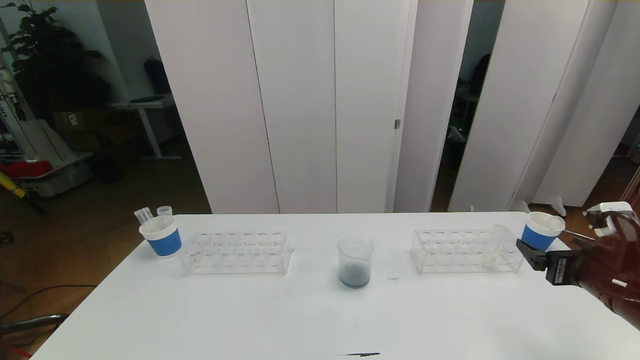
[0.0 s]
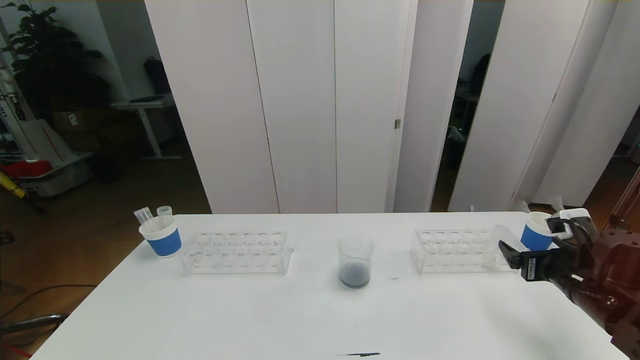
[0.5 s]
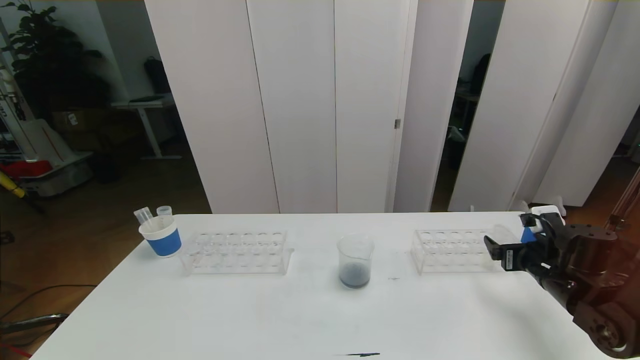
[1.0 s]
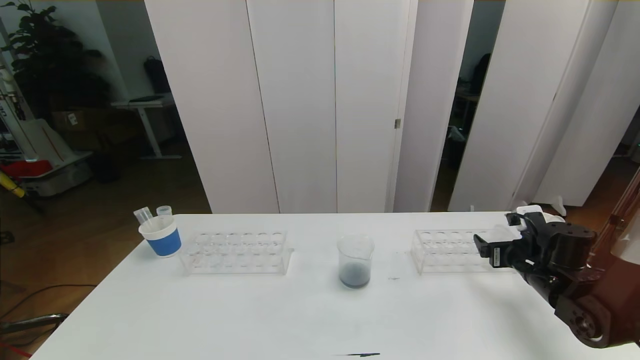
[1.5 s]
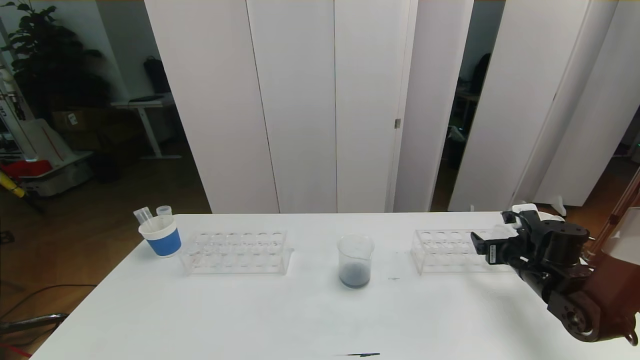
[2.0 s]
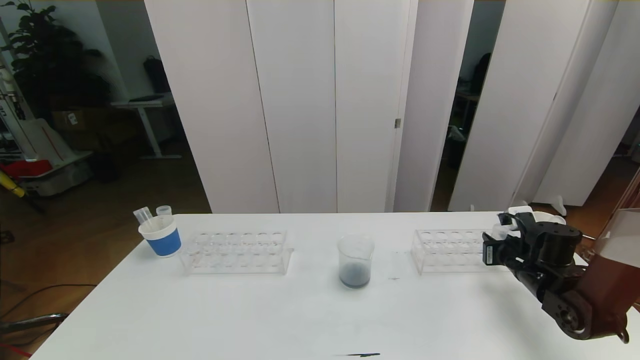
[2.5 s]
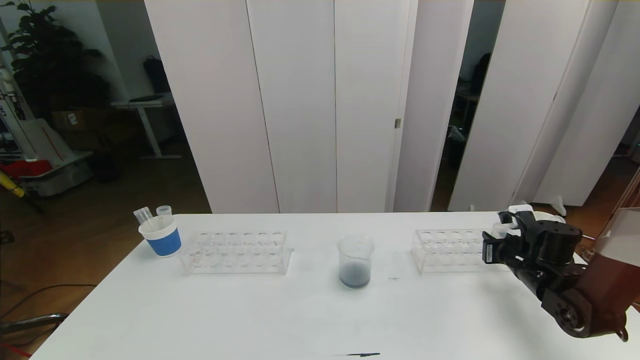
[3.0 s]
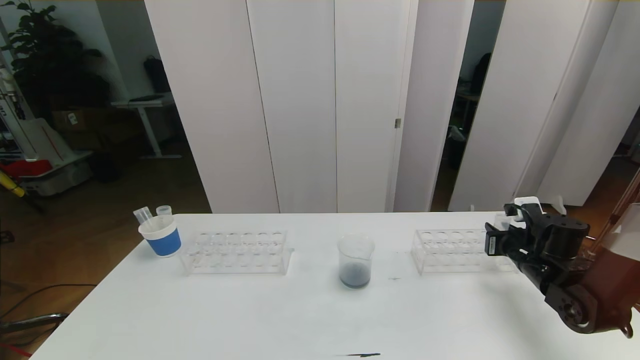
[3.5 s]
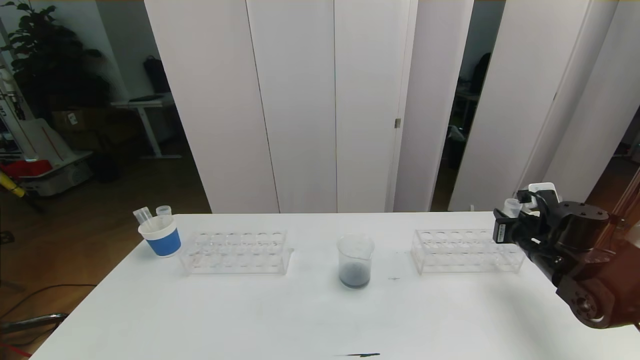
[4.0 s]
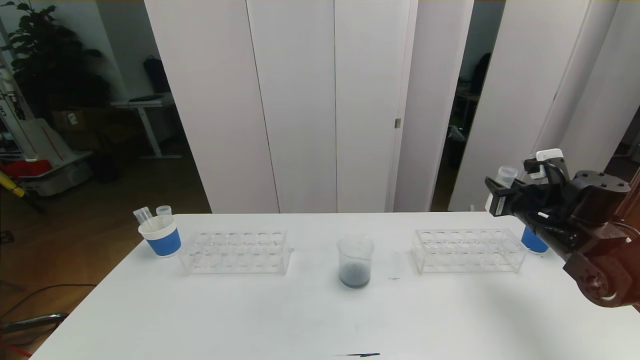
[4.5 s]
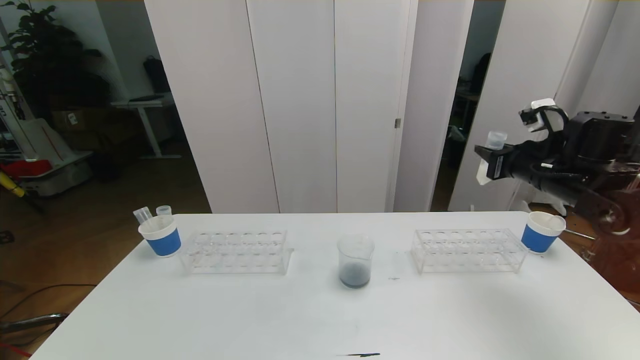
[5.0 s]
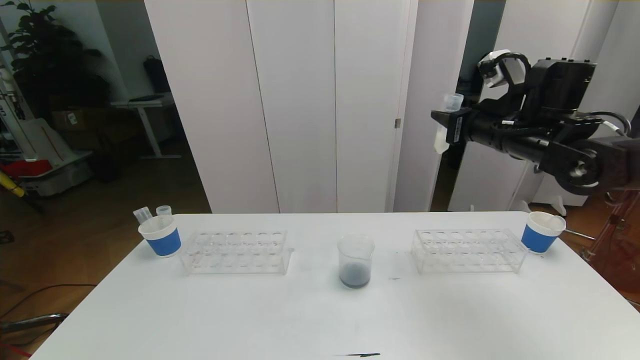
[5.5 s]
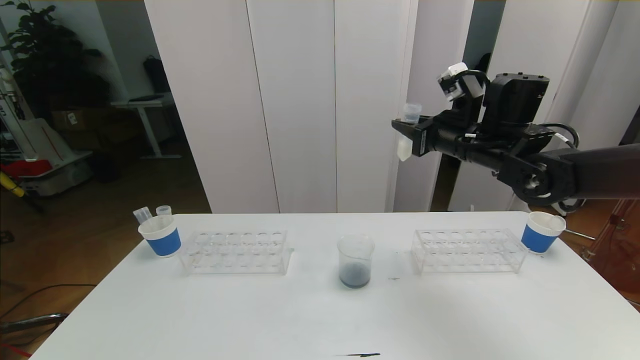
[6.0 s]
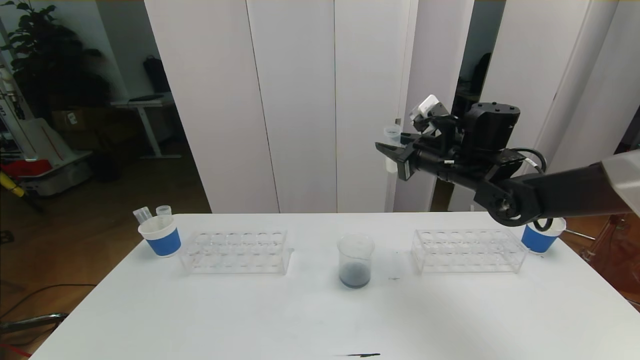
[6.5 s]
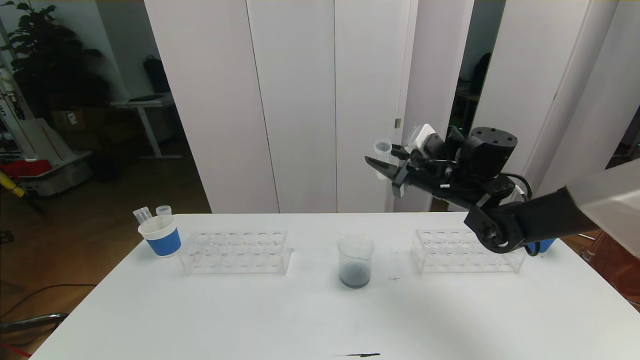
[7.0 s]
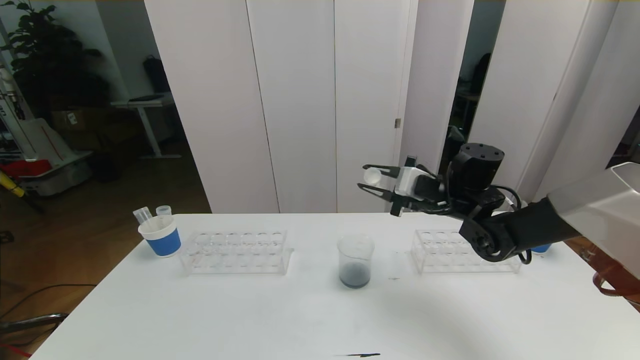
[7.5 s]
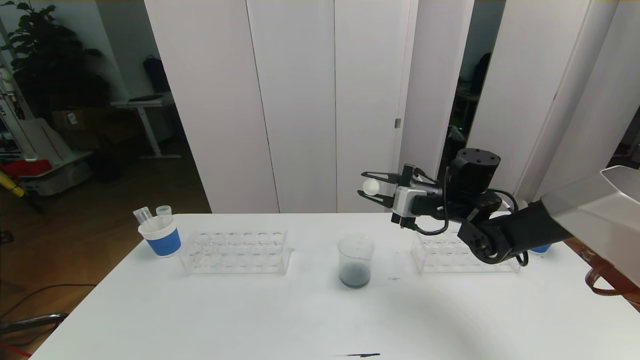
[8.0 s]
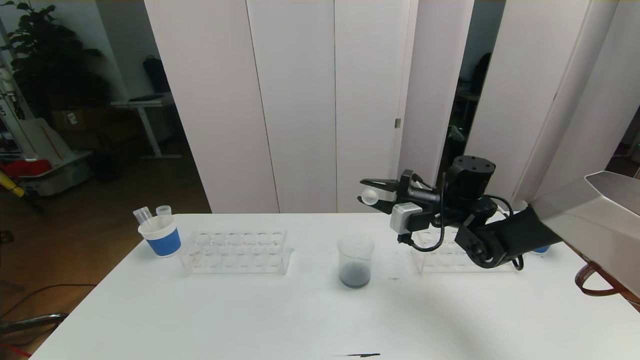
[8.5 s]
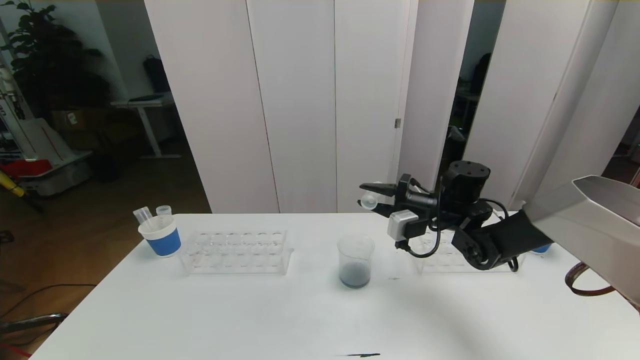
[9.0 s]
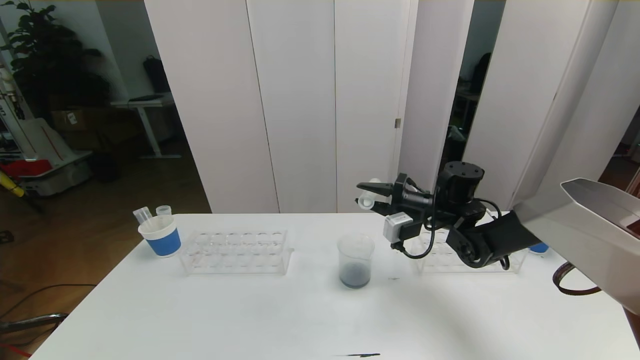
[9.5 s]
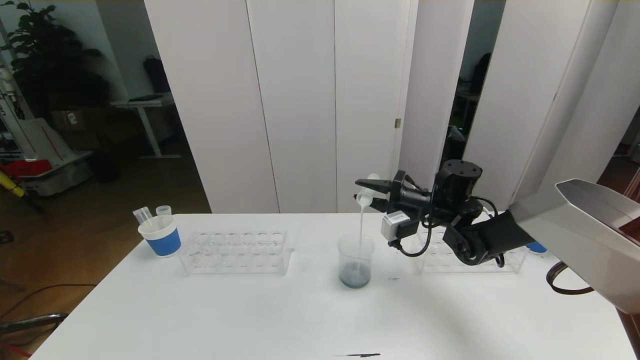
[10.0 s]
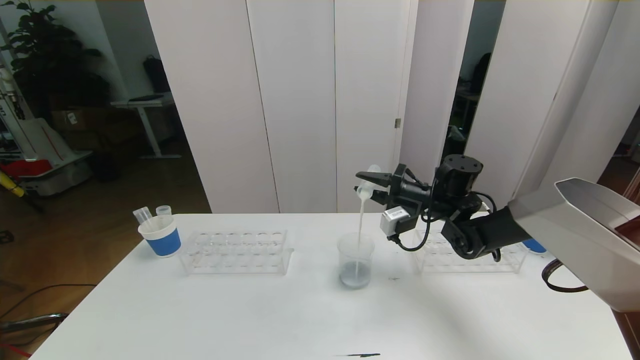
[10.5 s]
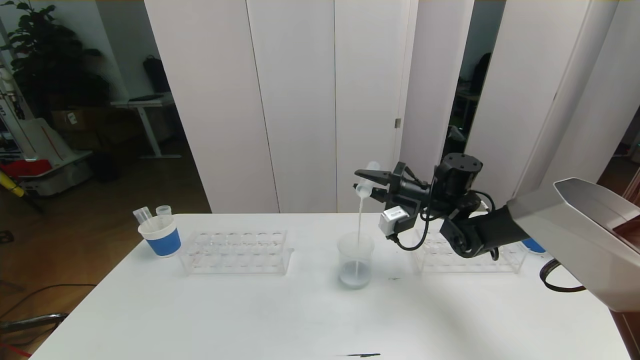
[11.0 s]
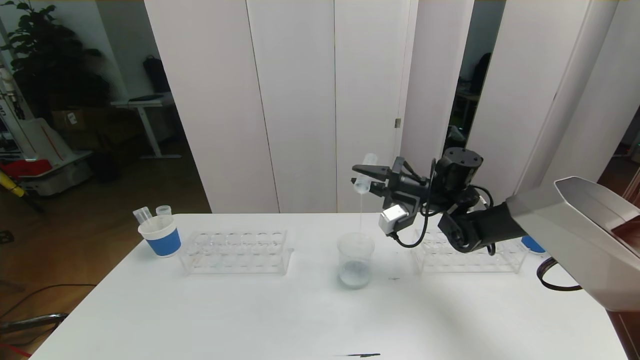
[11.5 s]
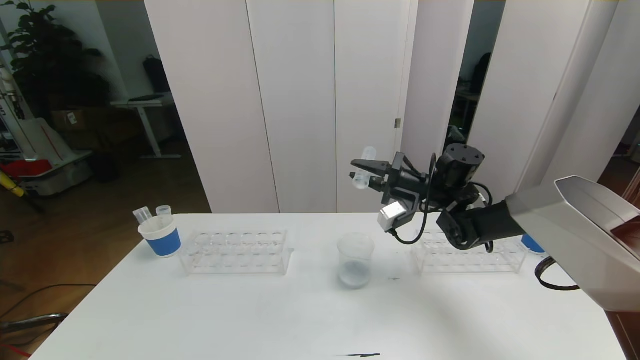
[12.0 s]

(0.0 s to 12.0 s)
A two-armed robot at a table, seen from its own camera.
Task of the whole recording: pick up the test tube with red pigment the test tube with blue pigment and the test tube with white pigment by grippers and pour them into the beaker.
0.0 s - 2.0 s: The right gripper heads forward and downward, covering some 15 cm.
2.0 s - 4.0 s: The right gripper closes up.
4.0 s - 6.0 s: The right gripper travels upward and to the left by about 20 cm.
6.0 s - 8.0 s: The right gripper goes about 10 cm downward.
10.0 s - 12.0 s: The grippers make only small movements.

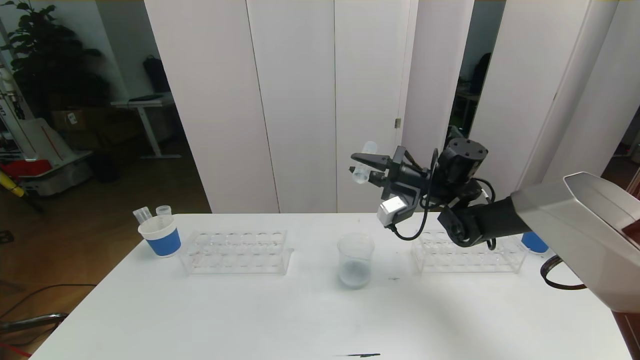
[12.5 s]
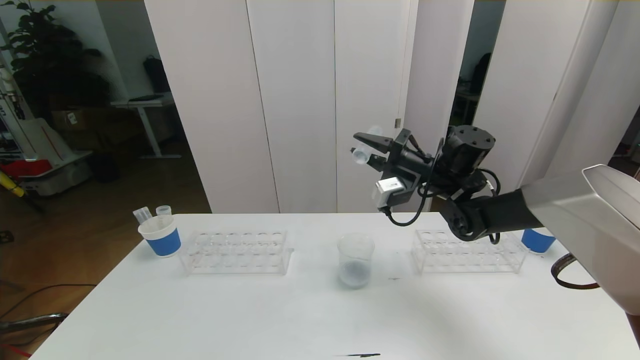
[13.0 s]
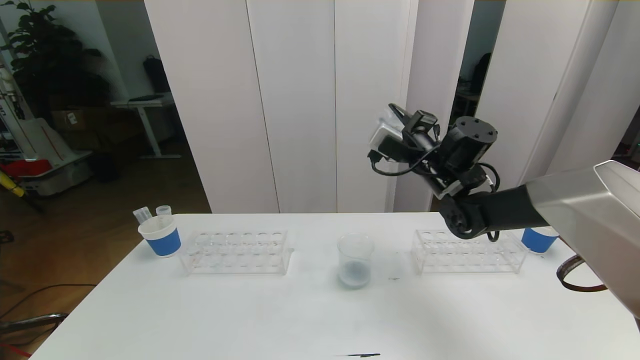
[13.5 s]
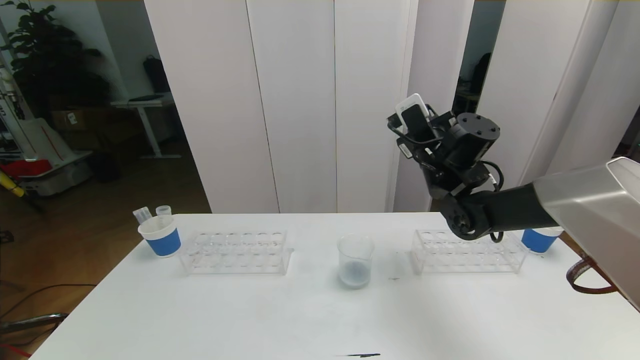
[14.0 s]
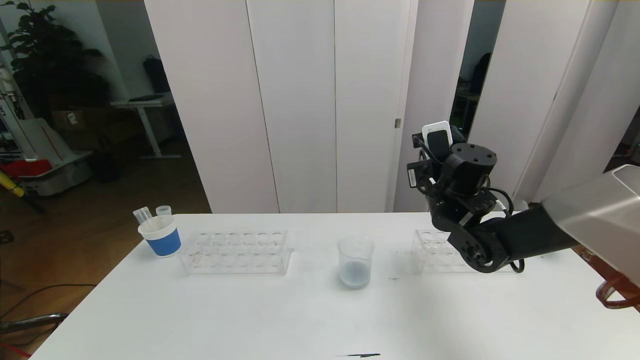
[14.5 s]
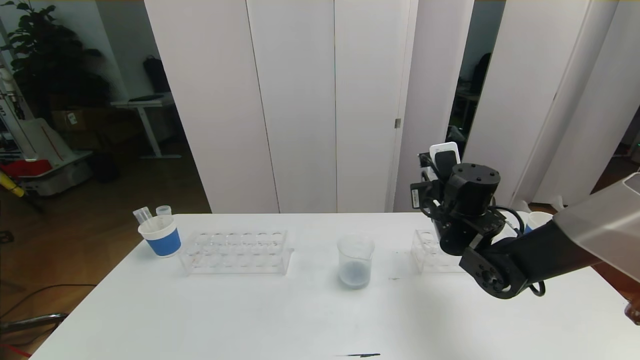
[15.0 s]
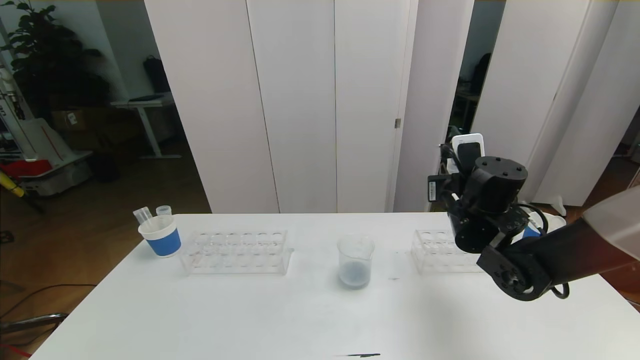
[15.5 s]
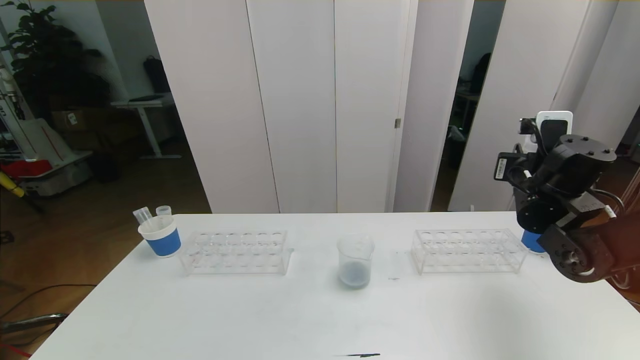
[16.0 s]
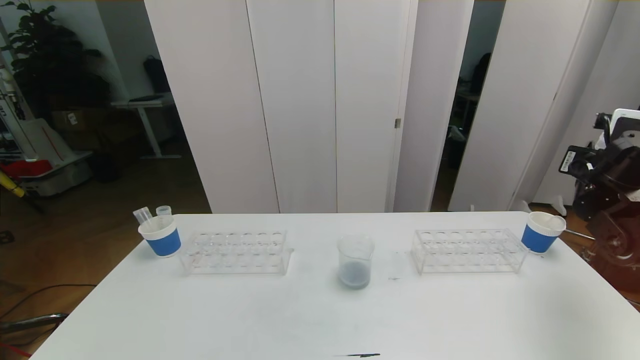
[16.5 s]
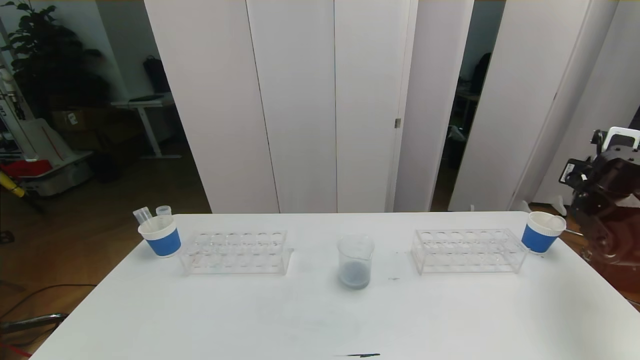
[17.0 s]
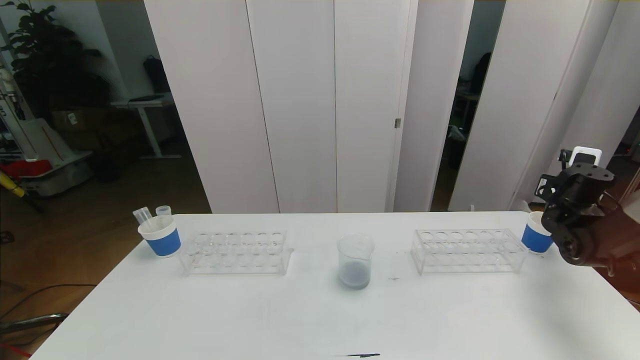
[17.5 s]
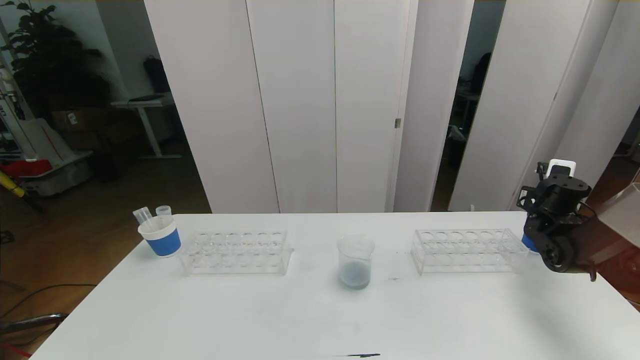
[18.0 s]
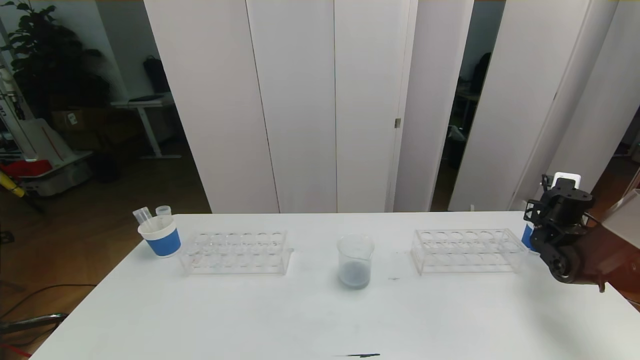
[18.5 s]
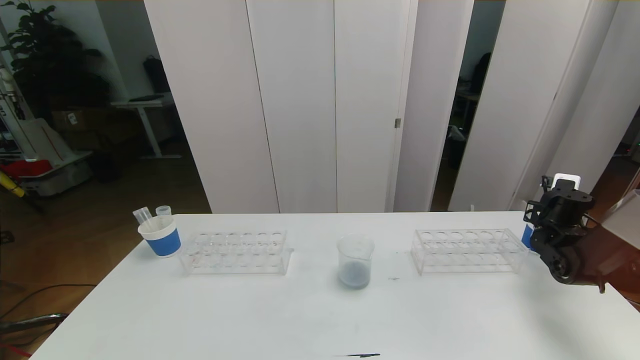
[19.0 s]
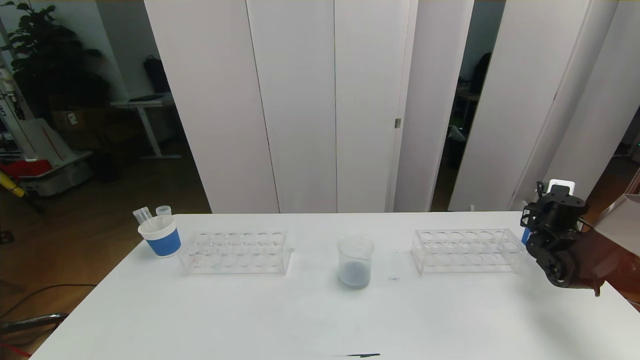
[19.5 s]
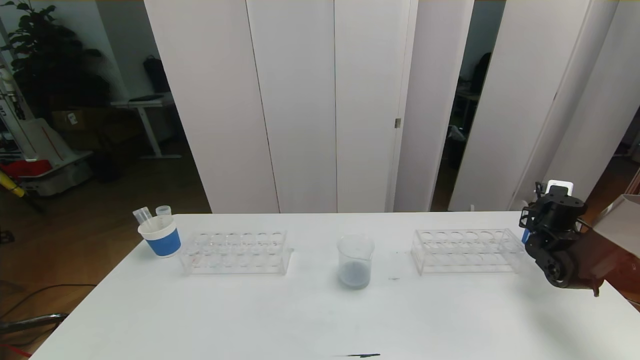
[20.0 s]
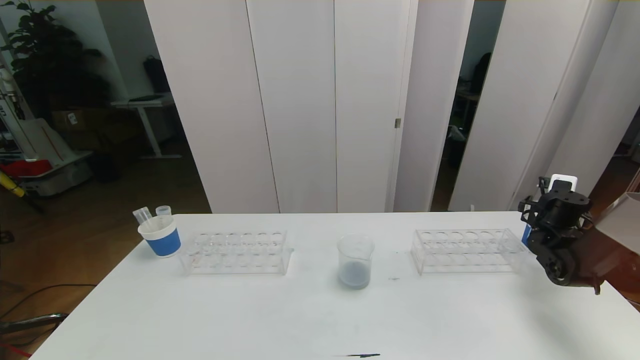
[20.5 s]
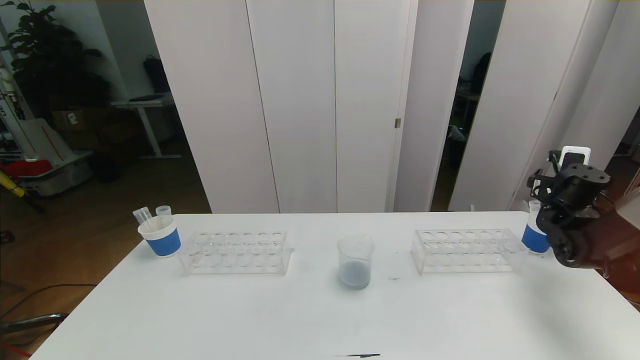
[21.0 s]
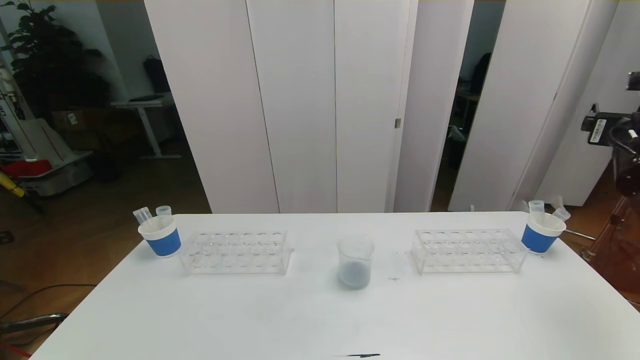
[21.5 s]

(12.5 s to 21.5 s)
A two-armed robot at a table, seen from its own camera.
Task of the whole recording: pick up the test tube with red pigment the test tube with blue pigment and the test tube with white pigment by grippers and pour them into the beaker.
12.5 s - 14.5 s: The right gripper heads backward, covering roughly 5 cm.
14.5 s - 17.0 s: The right gripper travels to the right by about 25 cm.
17.0 s - 19.5 s: The right gripper heads downward, covering about 10 cm.
19.5 s - 21.5 s: The right gripper goes approximately 25 cm upward and backward, and opens up.
